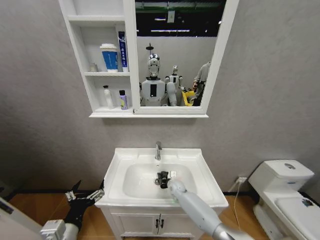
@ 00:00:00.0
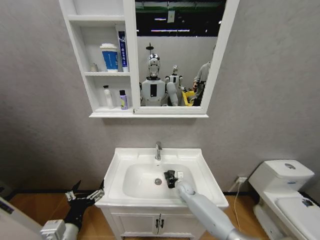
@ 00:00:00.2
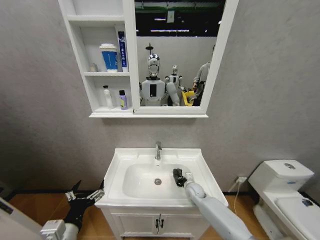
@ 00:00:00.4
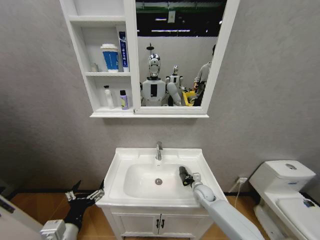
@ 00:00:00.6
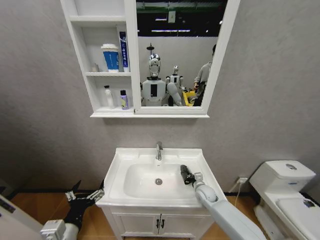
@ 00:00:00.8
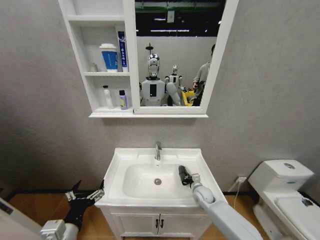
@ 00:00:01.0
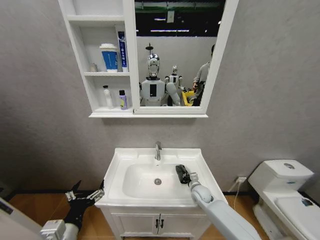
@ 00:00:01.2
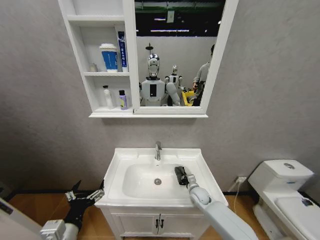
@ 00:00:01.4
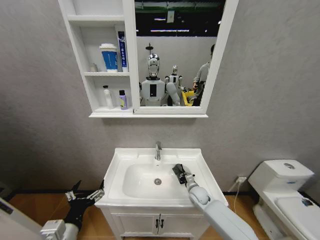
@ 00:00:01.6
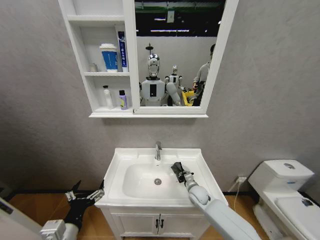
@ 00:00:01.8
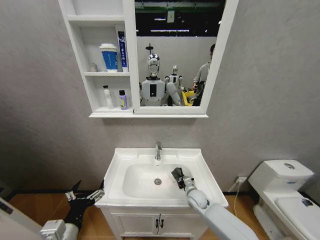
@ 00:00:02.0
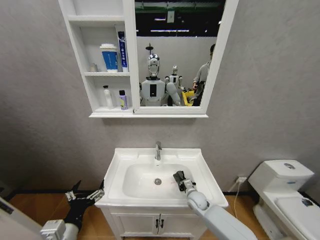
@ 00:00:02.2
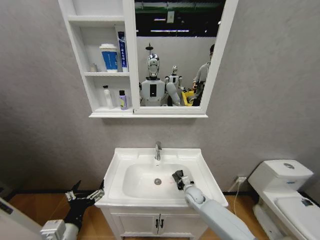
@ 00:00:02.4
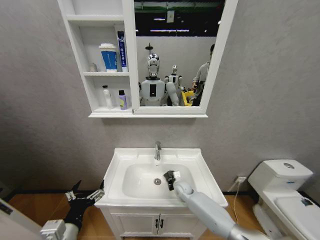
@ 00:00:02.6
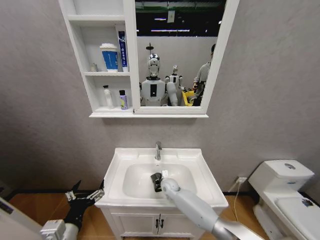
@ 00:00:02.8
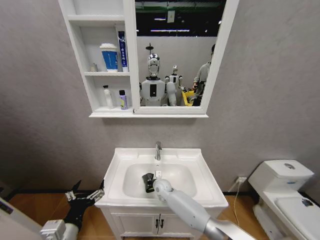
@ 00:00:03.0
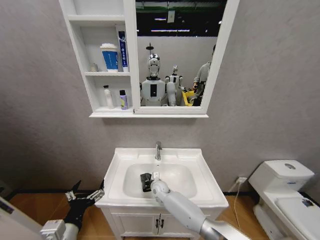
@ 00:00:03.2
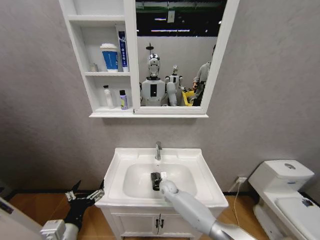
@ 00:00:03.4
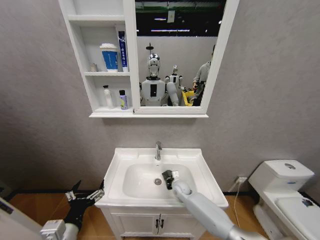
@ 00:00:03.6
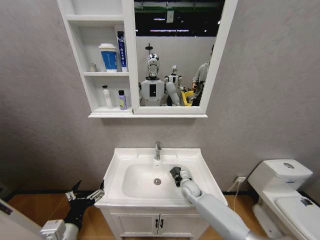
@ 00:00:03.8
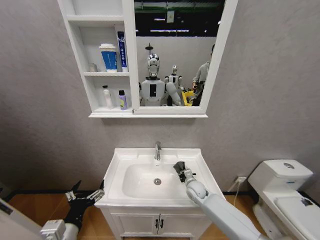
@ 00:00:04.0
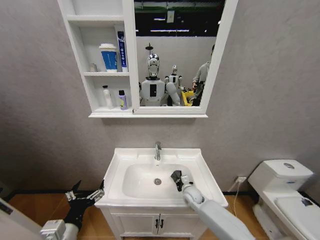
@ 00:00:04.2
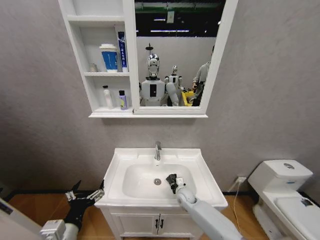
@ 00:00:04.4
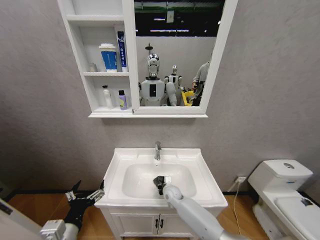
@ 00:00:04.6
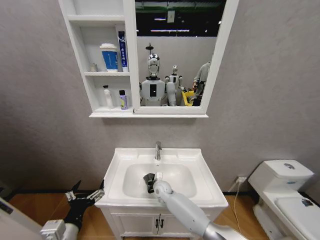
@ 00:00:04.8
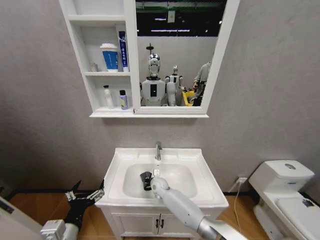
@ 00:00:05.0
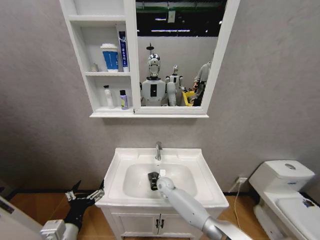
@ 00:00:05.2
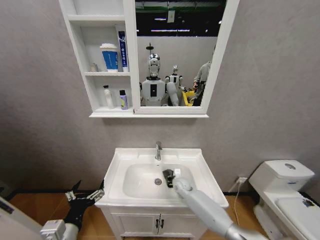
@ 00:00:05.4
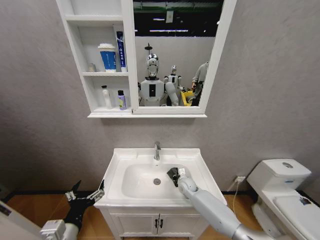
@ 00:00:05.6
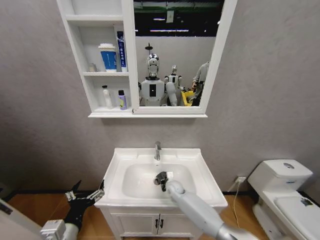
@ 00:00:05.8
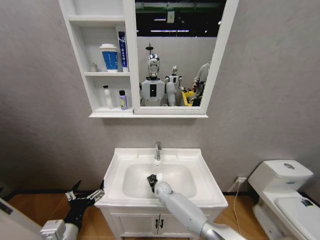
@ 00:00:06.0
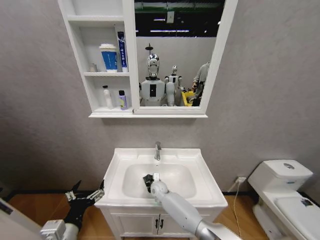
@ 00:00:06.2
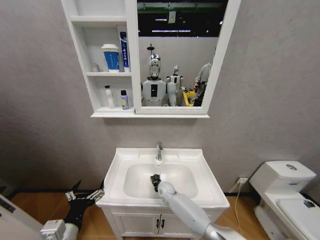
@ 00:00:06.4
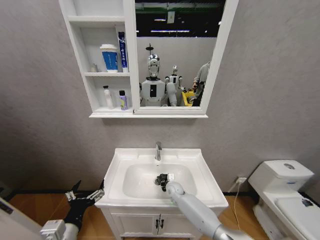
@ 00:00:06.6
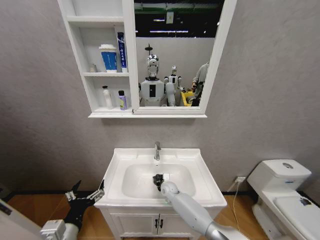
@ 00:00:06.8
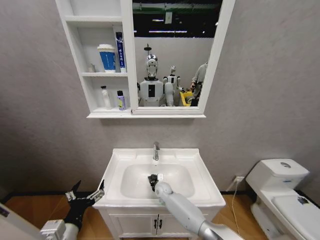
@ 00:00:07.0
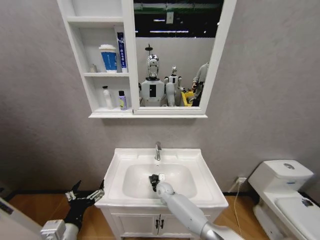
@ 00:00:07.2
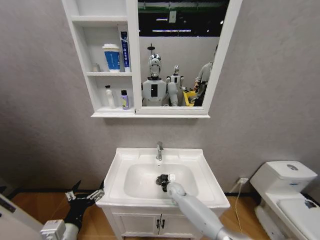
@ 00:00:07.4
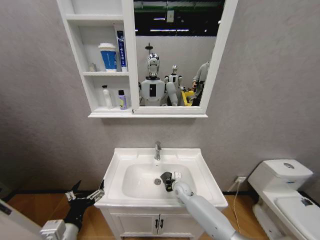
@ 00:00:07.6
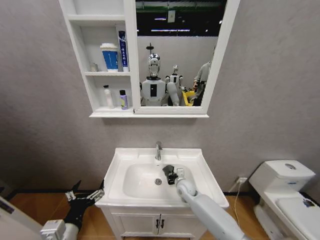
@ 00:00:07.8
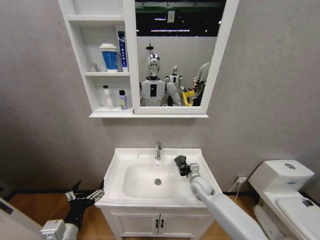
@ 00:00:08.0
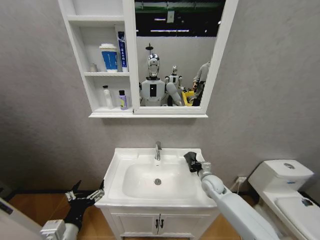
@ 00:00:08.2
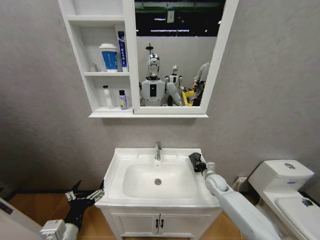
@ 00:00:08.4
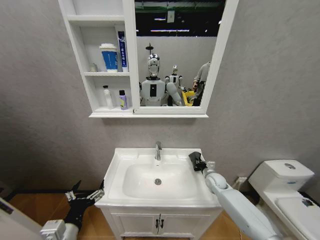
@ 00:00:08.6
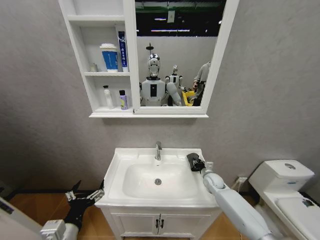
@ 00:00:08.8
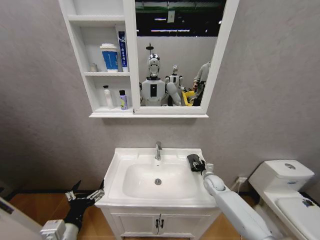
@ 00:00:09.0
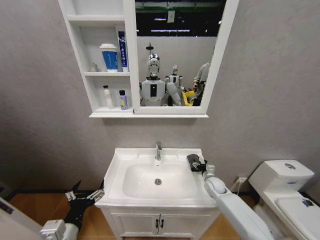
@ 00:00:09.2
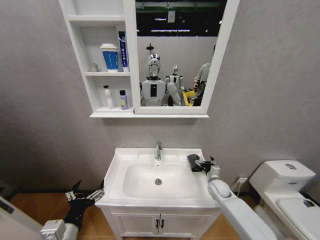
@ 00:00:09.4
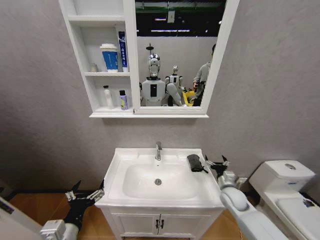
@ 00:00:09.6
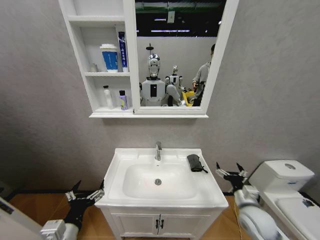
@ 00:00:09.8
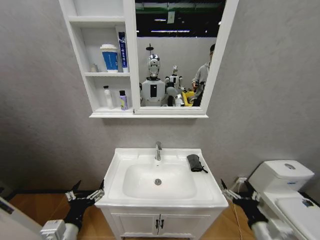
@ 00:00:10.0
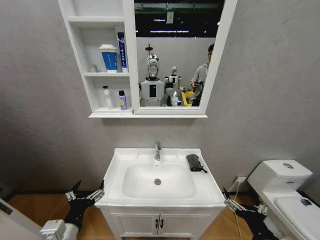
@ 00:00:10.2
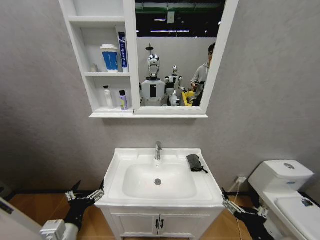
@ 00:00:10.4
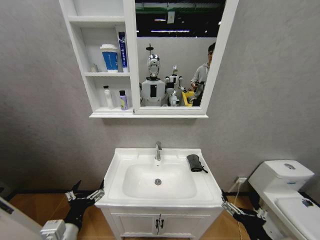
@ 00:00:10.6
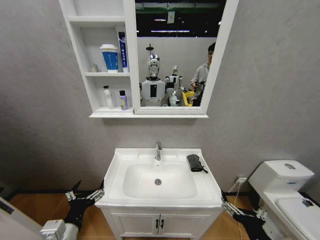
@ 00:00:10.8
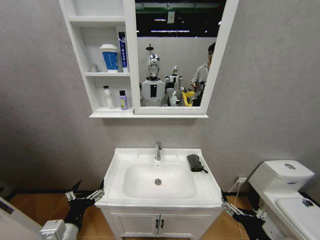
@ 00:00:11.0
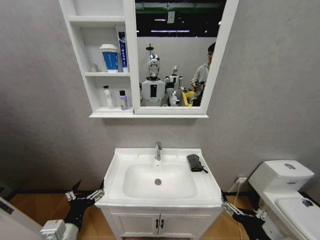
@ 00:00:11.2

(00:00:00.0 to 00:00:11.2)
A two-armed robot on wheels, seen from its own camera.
Task of the whole recording: Move facial cleanser and shampoo from washbasin to cabinet, then wipe washbasin with towel.
00:00:00.0 - 00:00:01.6: The right gripper goes roughly 10 cm to the right and backward.
00:00:01.6 - 00:00:03.2: The right gripper goes approximately 20 cm to the left.
00:00:03.2 - 00:00:04.8: The right gripper goes to the right and returns, about 20 cm each way.
00:00:04.8 - 00:00:06.4: The right gripper swings left and right, some 15 cm each way, with 2 reversals.
00:00:06.4 - 00:00:08.0: The right gripper swings left and right, roughly 20 cm each way, with 2 reversals.
00:00:08.0 - 00:00:09.6: The right gripper travels to the right and backward by about 15 cm, and opens up.
00:00:09.6 - 00:00:11.2: The right gripper moves backward, about 25 cm.

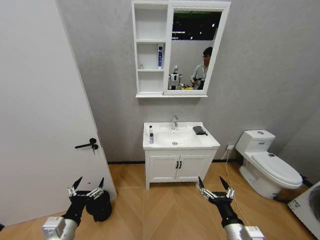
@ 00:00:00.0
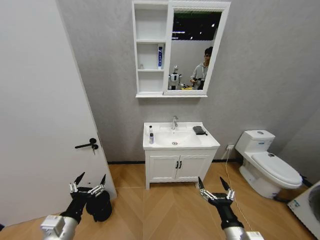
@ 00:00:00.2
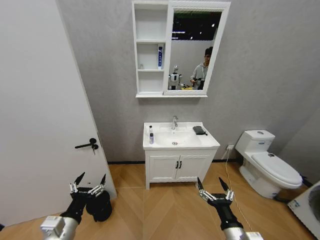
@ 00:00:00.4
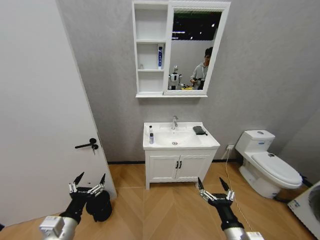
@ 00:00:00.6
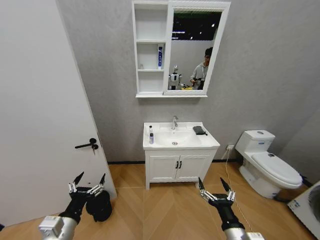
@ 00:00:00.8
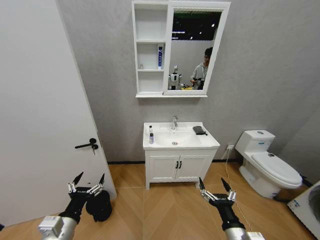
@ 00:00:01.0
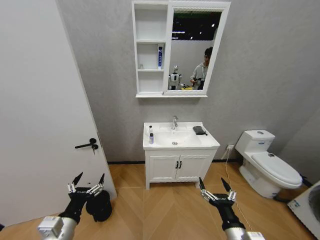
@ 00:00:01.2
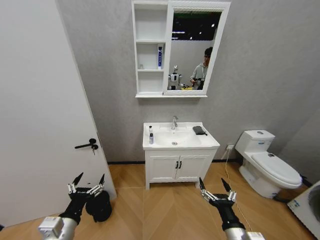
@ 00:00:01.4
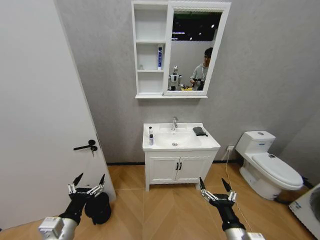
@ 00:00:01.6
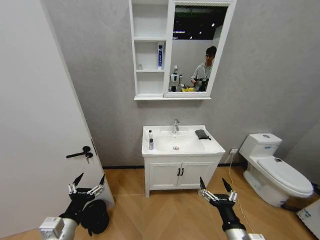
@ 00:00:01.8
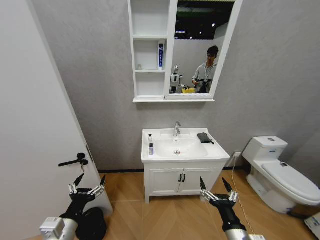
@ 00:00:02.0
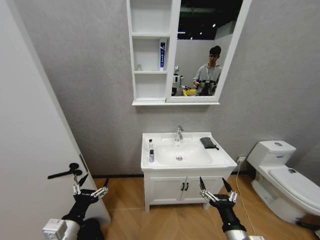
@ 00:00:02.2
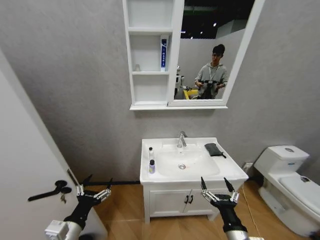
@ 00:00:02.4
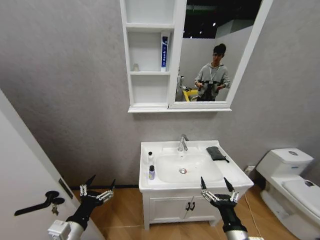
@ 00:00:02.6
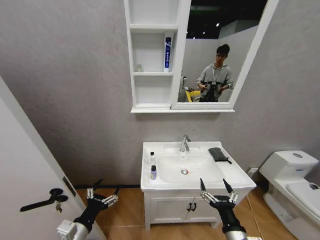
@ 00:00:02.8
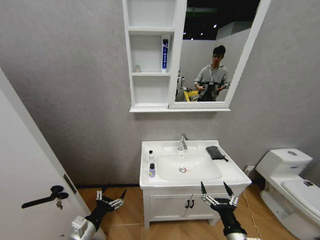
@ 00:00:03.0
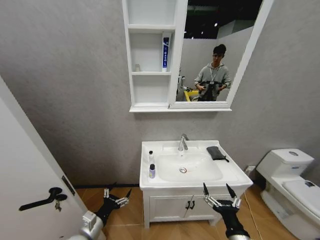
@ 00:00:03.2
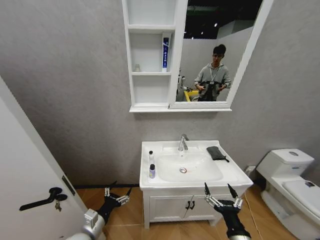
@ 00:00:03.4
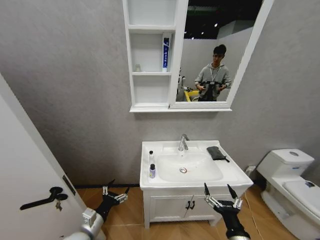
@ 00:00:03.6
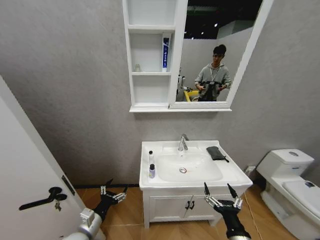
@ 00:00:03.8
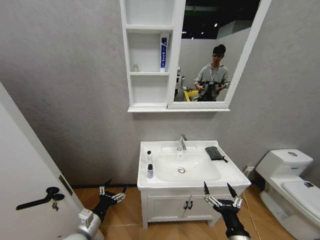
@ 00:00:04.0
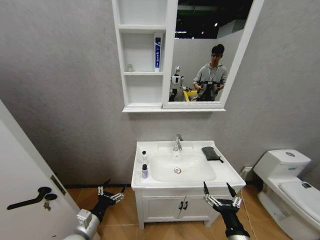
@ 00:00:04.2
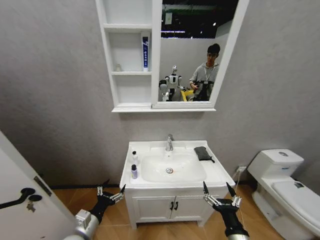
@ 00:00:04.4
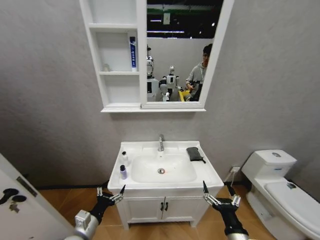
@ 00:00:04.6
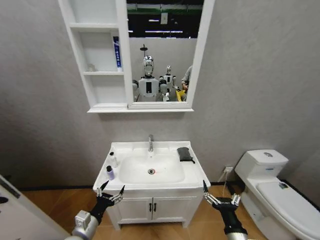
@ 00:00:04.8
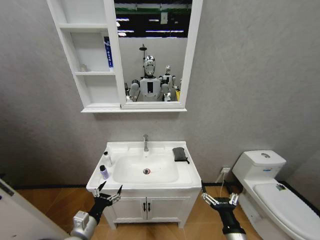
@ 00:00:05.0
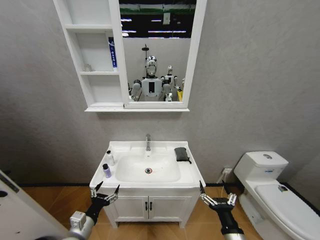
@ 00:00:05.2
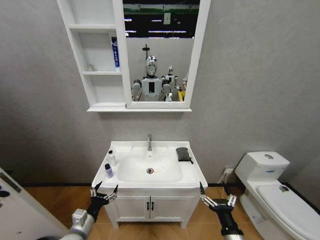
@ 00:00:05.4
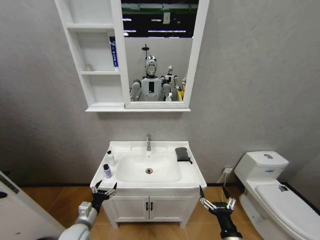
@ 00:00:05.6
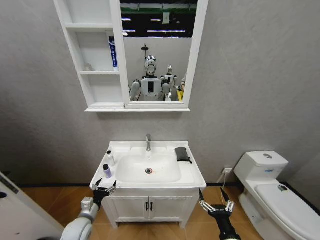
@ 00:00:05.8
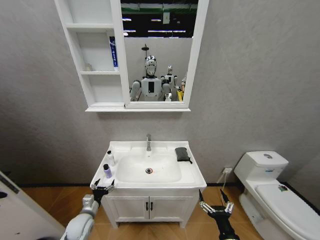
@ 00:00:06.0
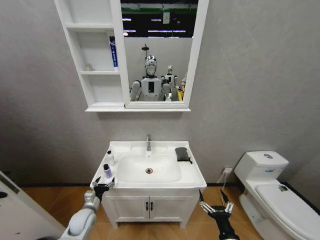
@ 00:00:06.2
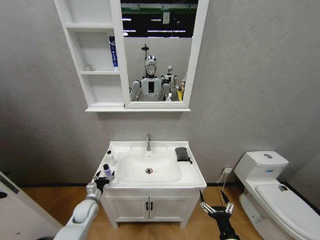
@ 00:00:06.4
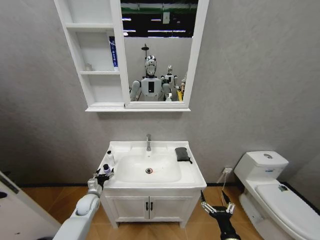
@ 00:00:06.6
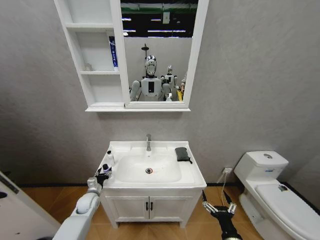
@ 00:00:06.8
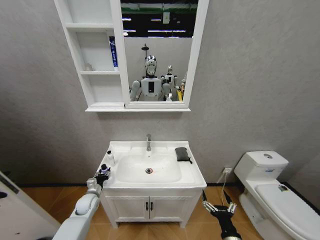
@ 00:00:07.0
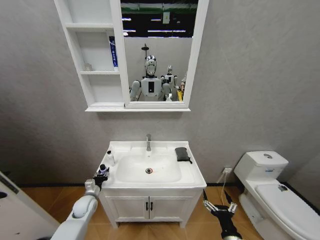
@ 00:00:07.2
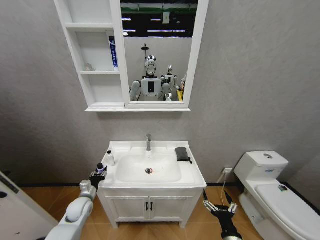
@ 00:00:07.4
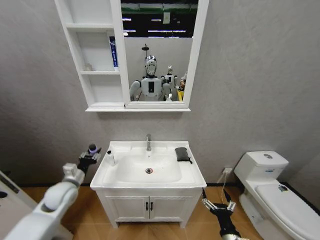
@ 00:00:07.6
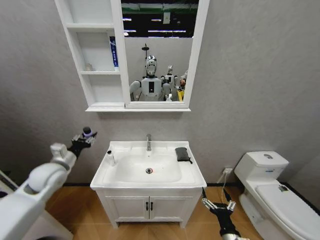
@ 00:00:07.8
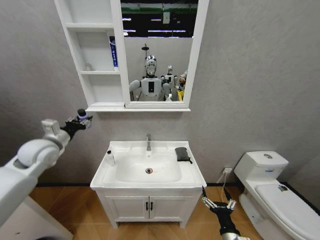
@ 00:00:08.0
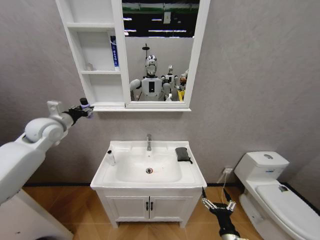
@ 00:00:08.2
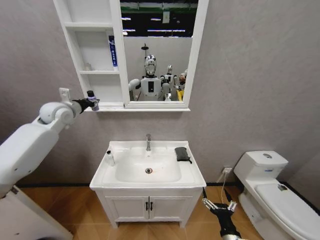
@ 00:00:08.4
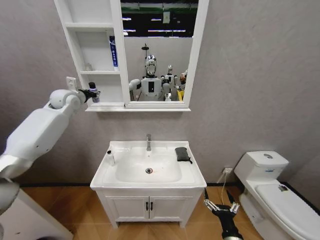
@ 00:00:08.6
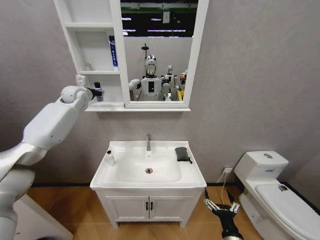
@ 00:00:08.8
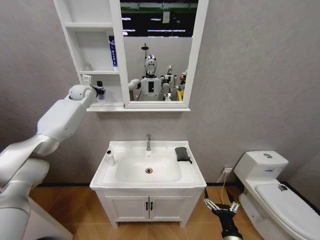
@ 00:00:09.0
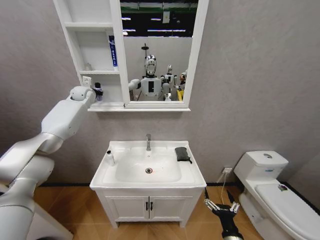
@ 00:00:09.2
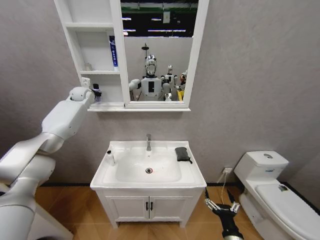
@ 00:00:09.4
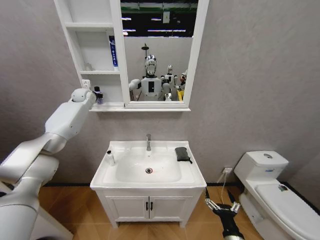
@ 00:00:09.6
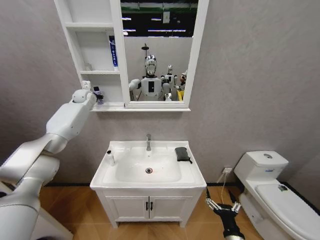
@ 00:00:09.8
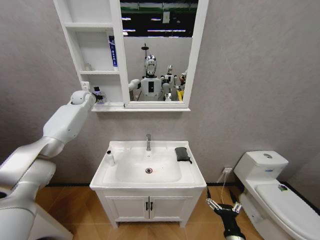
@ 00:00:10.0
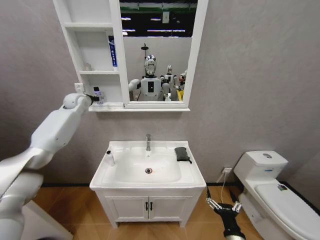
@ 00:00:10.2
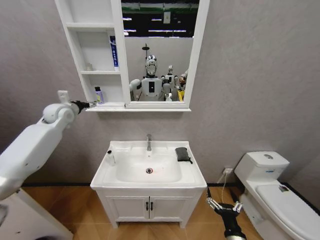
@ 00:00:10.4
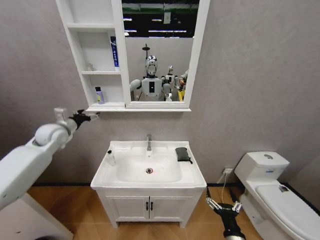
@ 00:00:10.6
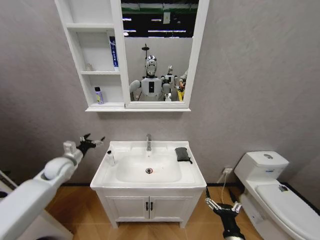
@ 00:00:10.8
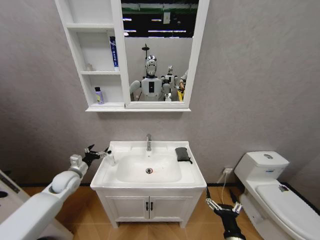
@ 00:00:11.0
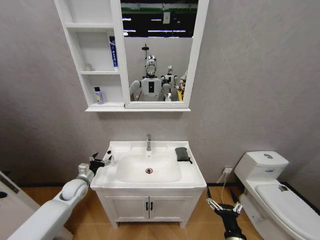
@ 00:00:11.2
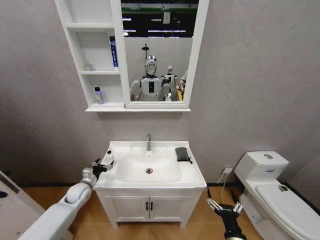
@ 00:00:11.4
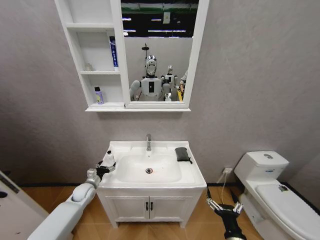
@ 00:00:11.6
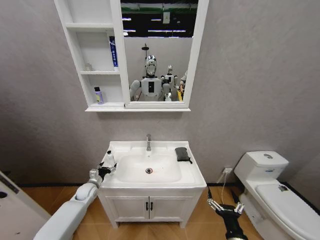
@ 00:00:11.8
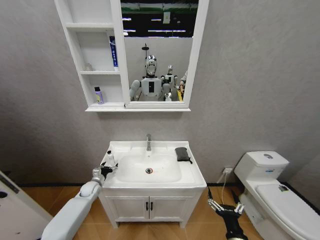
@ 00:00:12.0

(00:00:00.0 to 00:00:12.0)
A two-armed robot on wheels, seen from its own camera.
Task of the whole recording: Move facial cleanser and shampoo from washbasin to cabinet, then wipe washbasin with towel.
00:00:01.6 - 00:00:03.0: The left gripper travels downward by some 5 cm.
00:00:04.4 - 00:00:06.0: The left gripper shifts approximately 15 cm downward and forward. Meanwhile the right gripper moves downward, approximately 5 cm.
00:00:06.0 - 00:00:07.6: The left gripper moves upward and forward, about 15 cm, and closes its fingers.
00:00:07.6 - 00:00:09.0: The left gripper travels forward and upward by some 40 cm.
00:00:09.0 - 00:00:10.4: The left gripper moves backward, to the left and downward, some 15 cm, and opens up.
00:00:10.4 - 00:00:12.0: The left gripper moves downward, roughly 40 cm.
